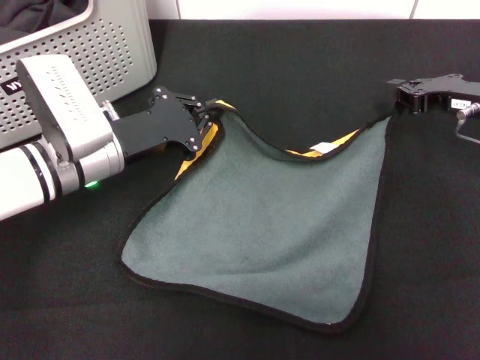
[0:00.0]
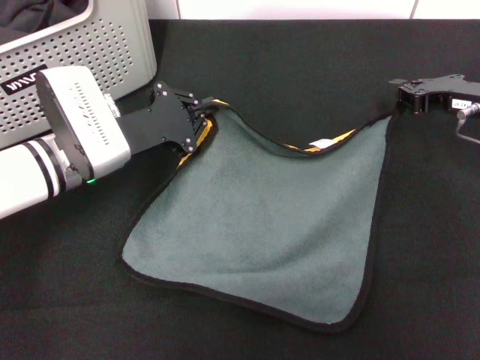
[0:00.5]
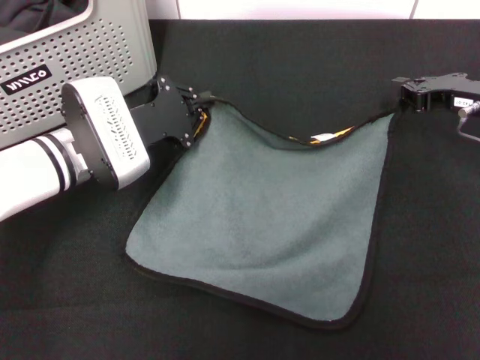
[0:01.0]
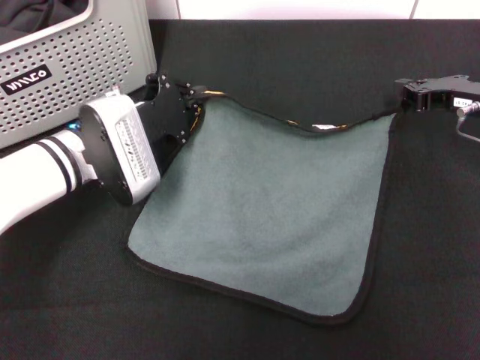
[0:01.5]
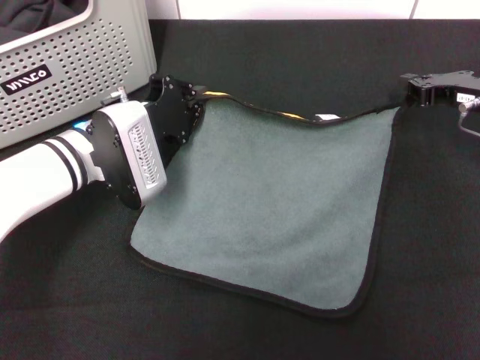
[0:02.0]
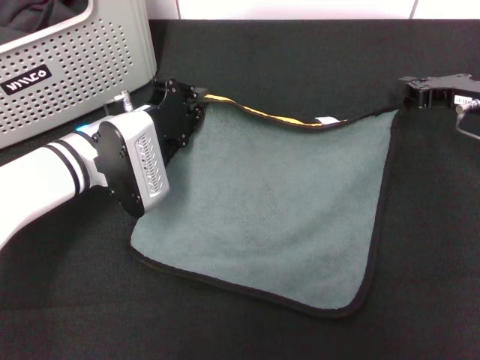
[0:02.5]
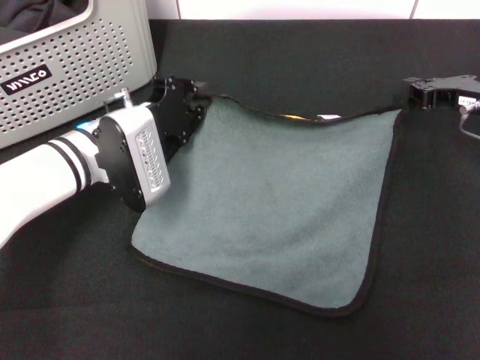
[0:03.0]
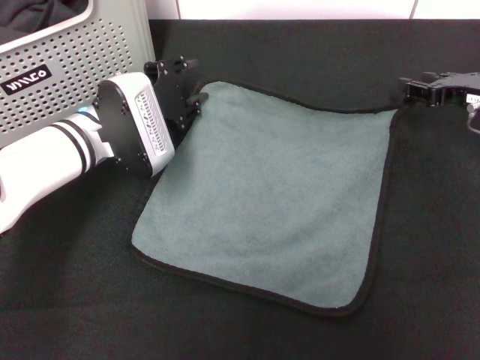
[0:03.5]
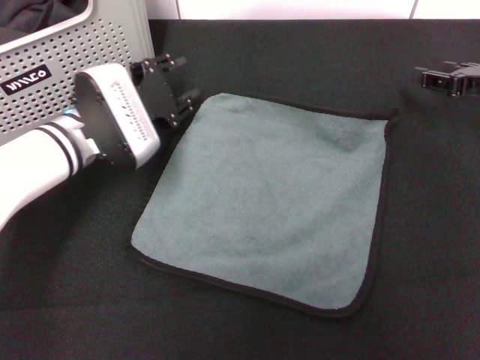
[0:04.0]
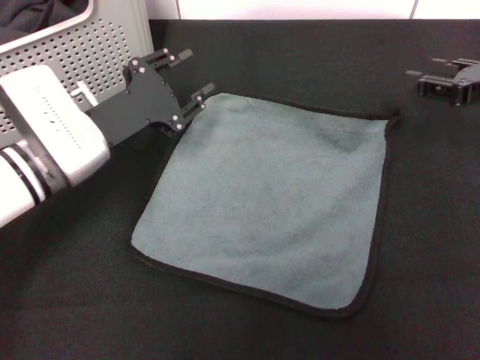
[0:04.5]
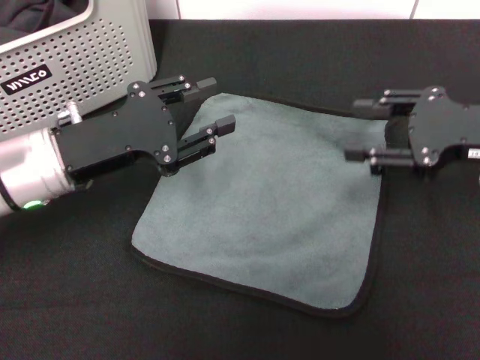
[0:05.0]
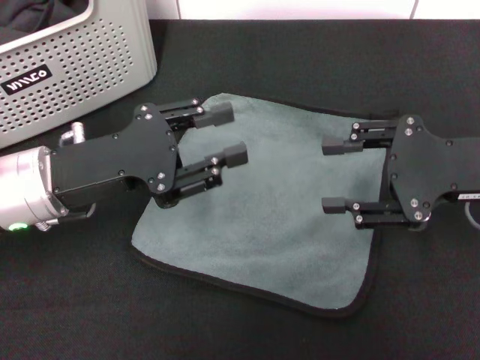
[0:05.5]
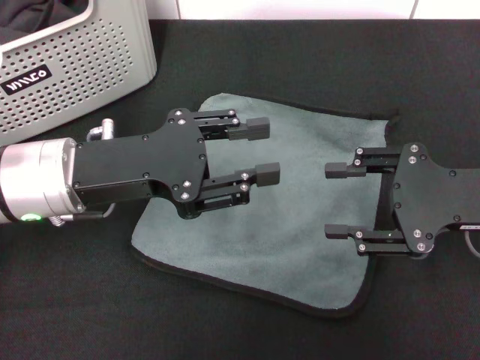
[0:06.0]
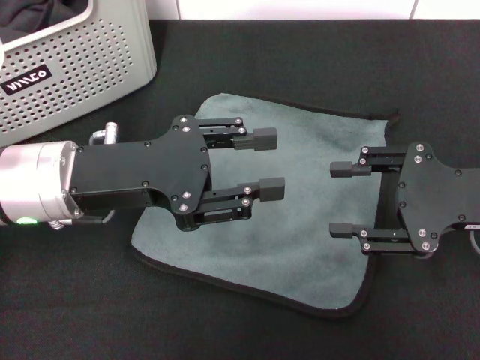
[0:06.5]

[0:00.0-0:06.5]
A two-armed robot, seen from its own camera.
Task of the whole recording: pick up the towel from the storage box and lay it flat on the black tablecloth.
Step, 0:00.0 to 0:03.5: Spread the towel flat with the right gripper.
0:02.0 to 0:04.5: The left gripper opens its fingers. The right gripper opens up.
0:04.5 to 0:06.5: The right gripper goes roughly 10 cm backward and to the left; the left gripper moves upward and backward, some 10 cm.

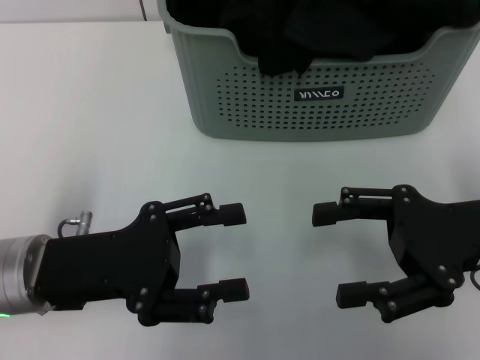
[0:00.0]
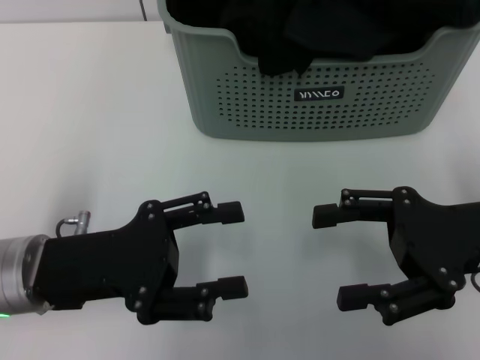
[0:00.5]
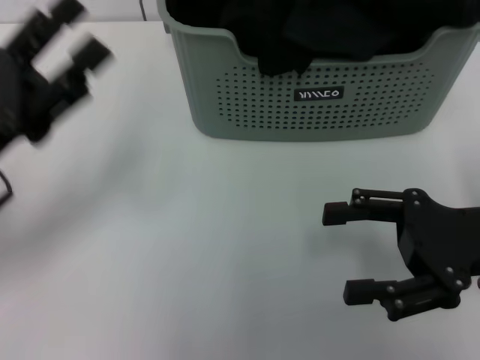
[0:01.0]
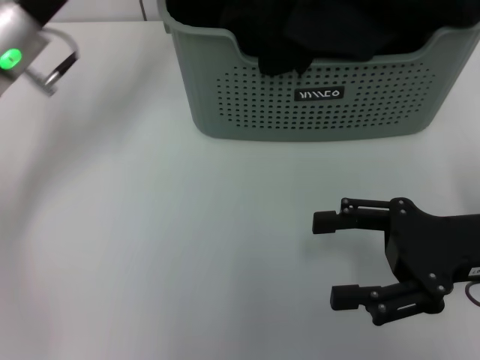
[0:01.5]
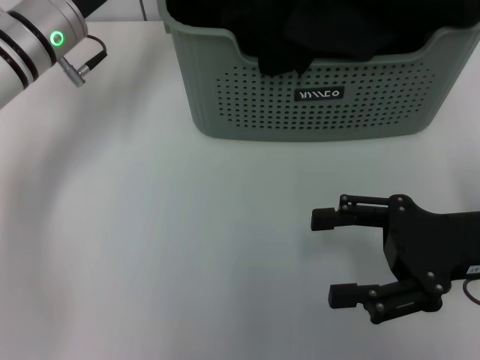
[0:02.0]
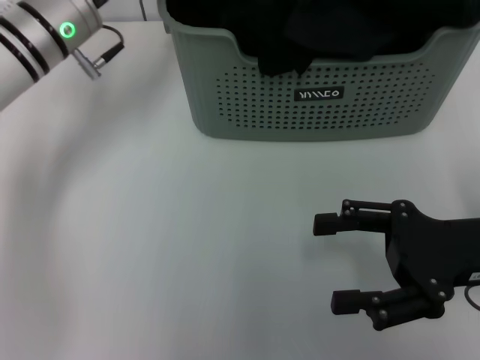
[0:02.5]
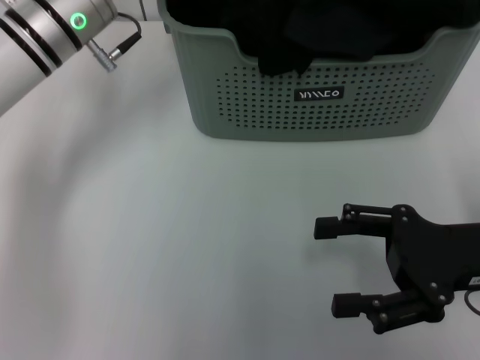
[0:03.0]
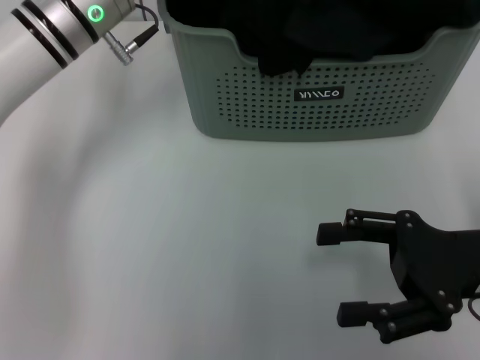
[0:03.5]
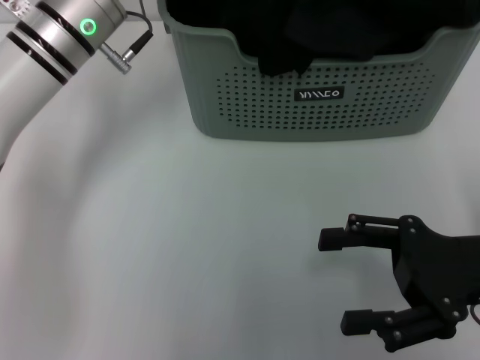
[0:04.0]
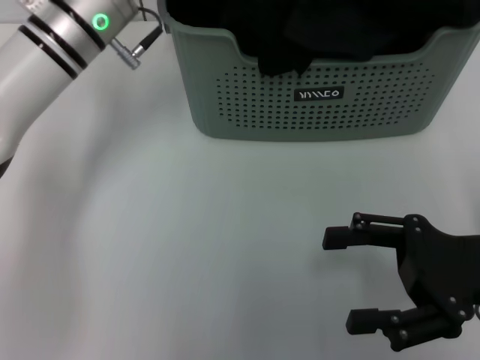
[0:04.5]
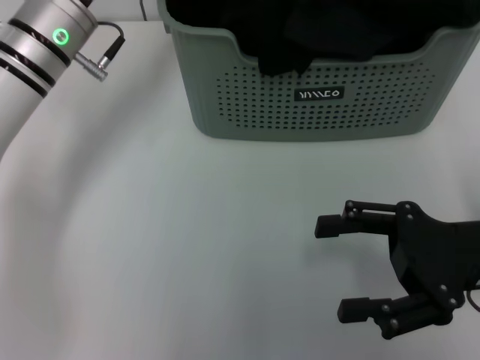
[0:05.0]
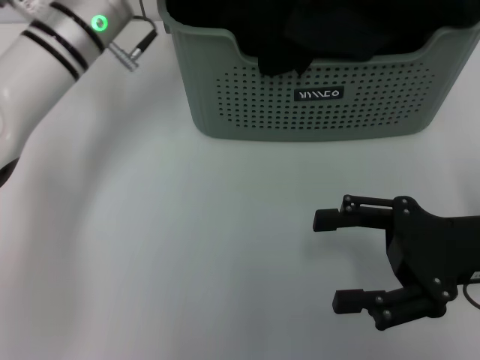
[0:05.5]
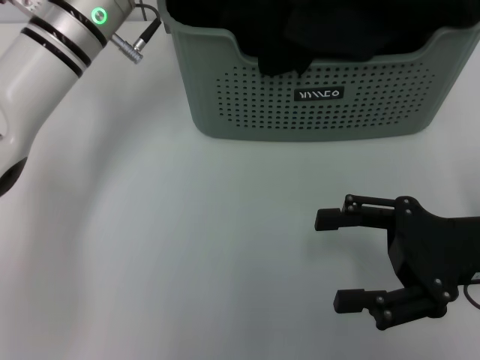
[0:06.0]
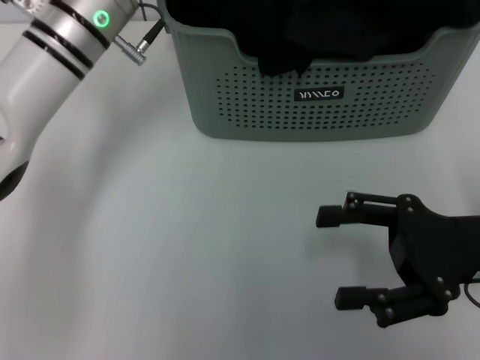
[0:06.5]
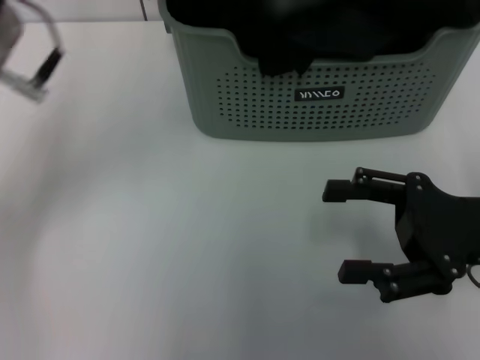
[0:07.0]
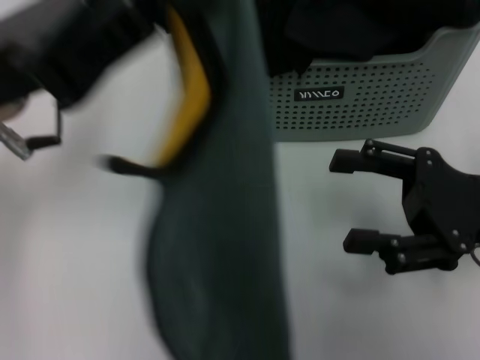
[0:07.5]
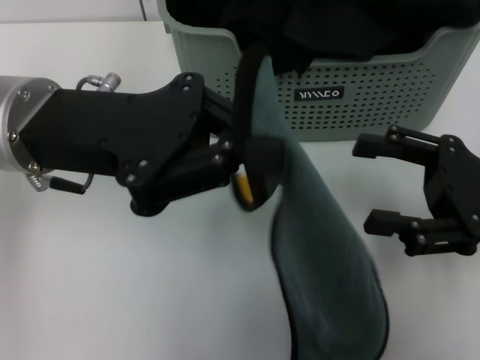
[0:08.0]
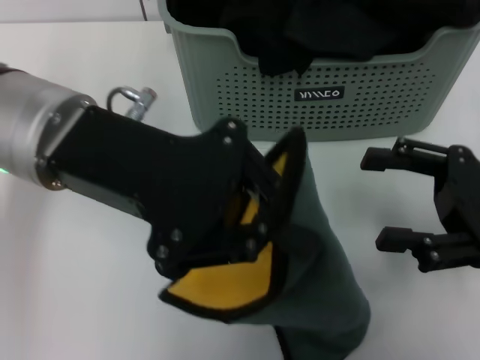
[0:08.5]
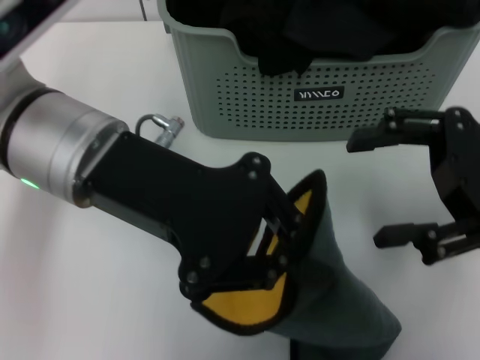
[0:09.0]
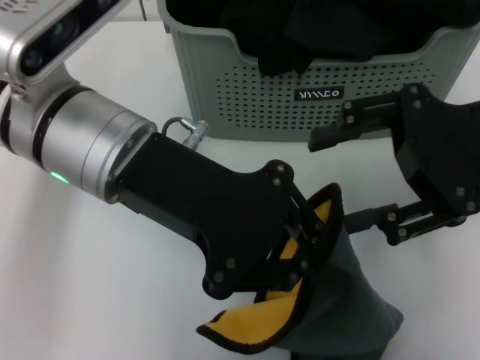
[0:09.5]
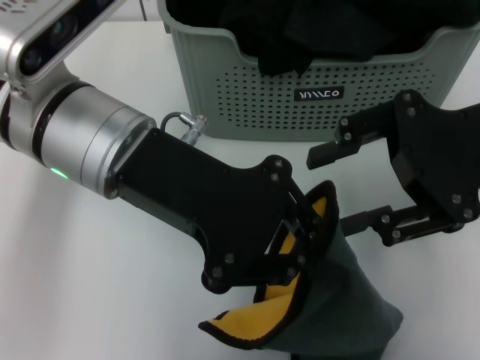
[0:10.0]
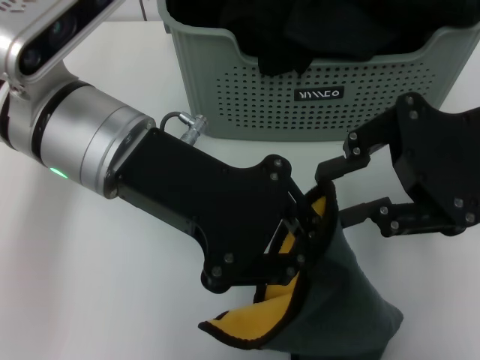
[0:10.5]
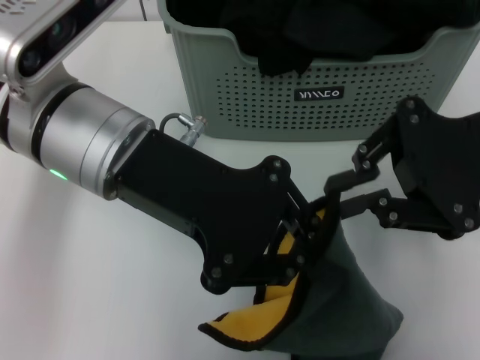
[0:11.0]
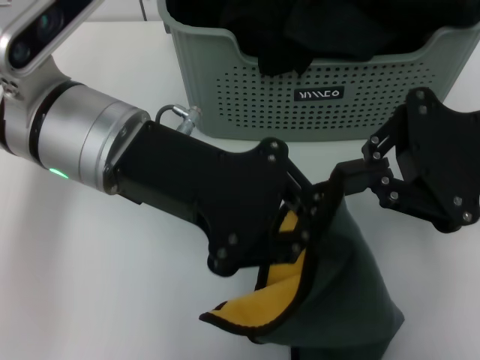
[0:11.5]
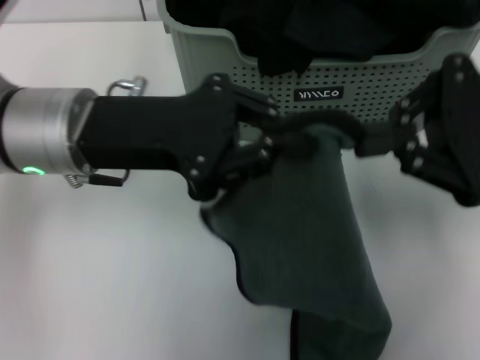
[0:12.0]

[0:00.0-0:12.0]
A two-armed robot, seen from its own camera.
Task of the whole recording: pick up the towel from the storage box and lay it flat on the table.
Step, 0:00.0 to 0:06.5: Pick up a towel with the left gripper.
Step, 0:07.0 to 0:11.0: Spread the towel flat with the left gripper.
0:00.0 to 0:02.0: The left gripper heads forward, covering approximately 20 cm.
0:02.0 to 0:04.0: The left gripper closes up.
0:04.0 to 0:06.0: The left gripper closes and opens again.
0:06.0 to 0:08.0: The left gripper heads backward, covering some 10 cm, and closes its fingers.
0:08.0 to 0:10.0: The right gripper goes approximately 10 cm upward. The left gripper shifts some 5 cm to the right.
0:10.0 to 0:12.0: The left gripper moves about 5 cm; the right gripper closes its fingers.

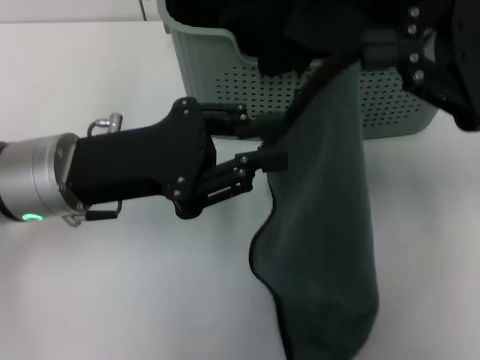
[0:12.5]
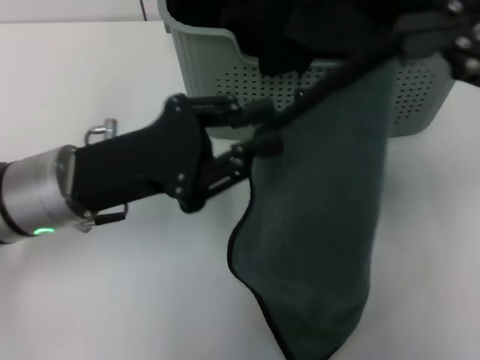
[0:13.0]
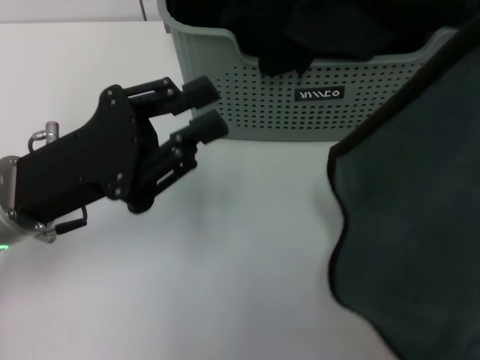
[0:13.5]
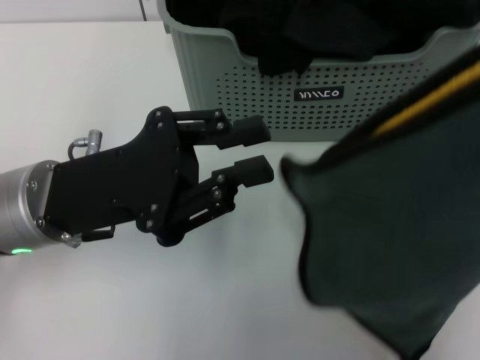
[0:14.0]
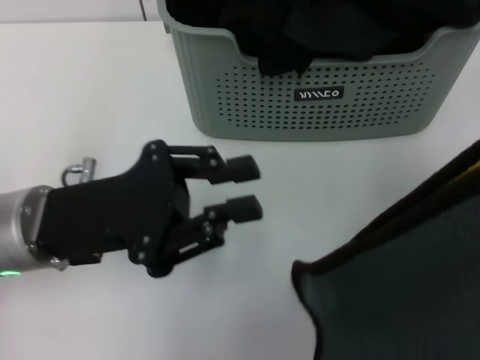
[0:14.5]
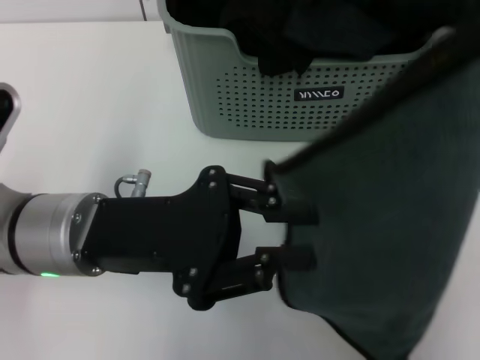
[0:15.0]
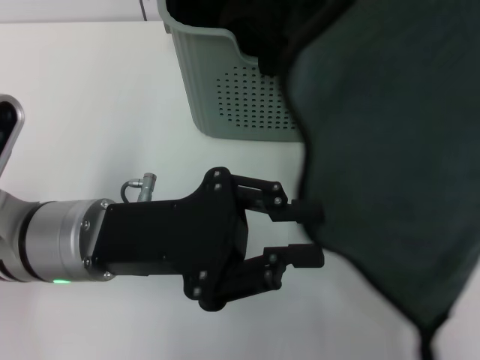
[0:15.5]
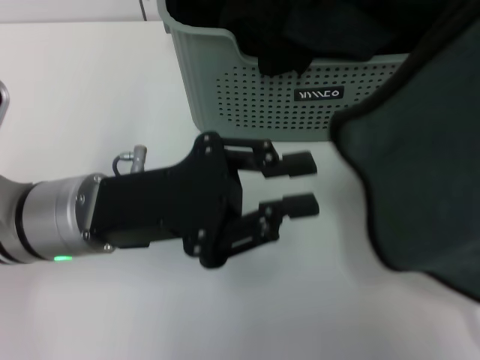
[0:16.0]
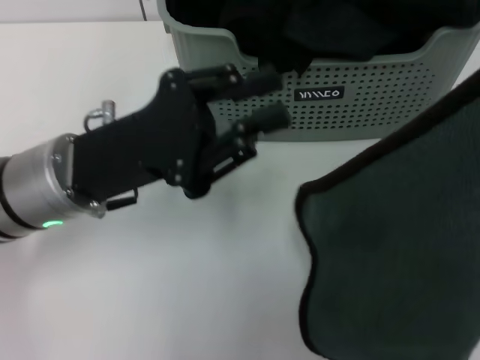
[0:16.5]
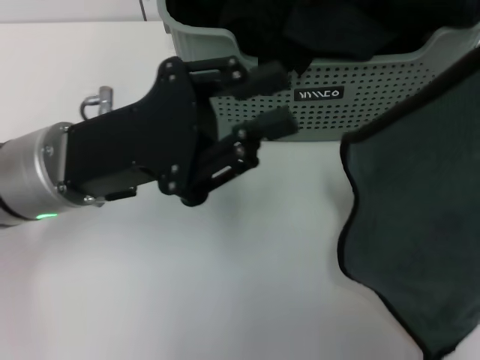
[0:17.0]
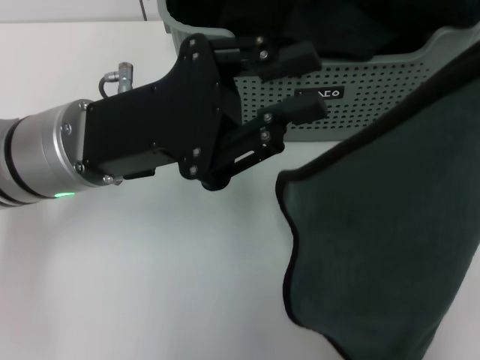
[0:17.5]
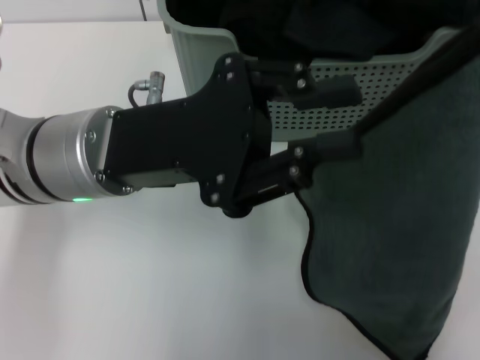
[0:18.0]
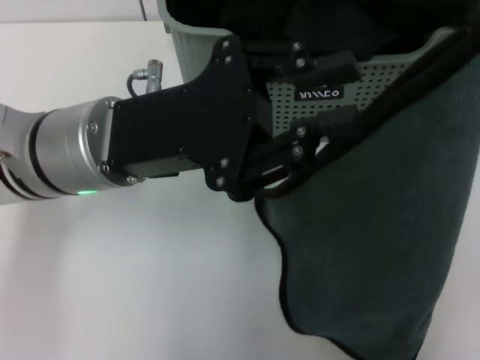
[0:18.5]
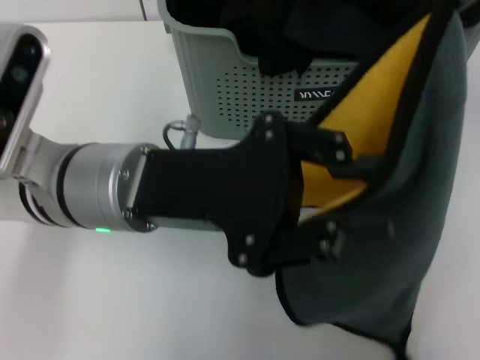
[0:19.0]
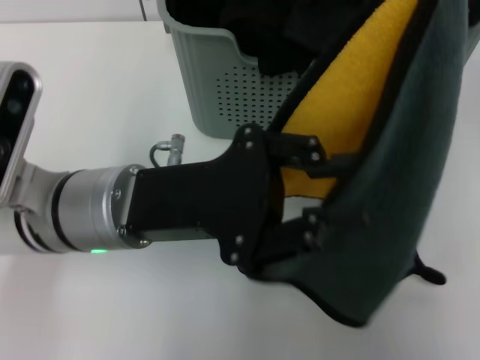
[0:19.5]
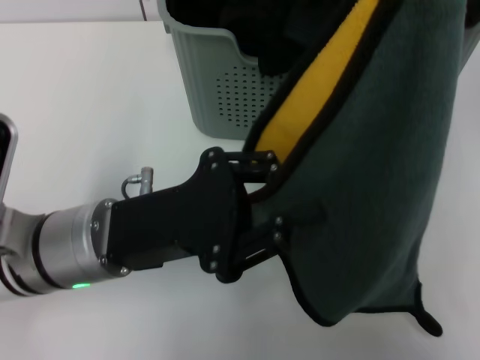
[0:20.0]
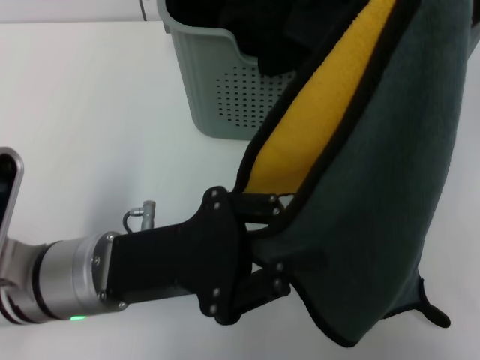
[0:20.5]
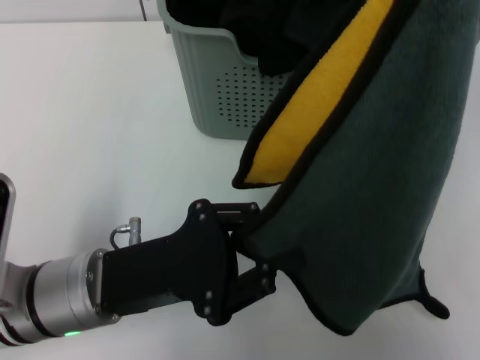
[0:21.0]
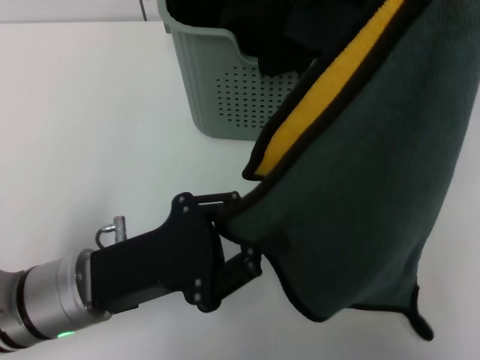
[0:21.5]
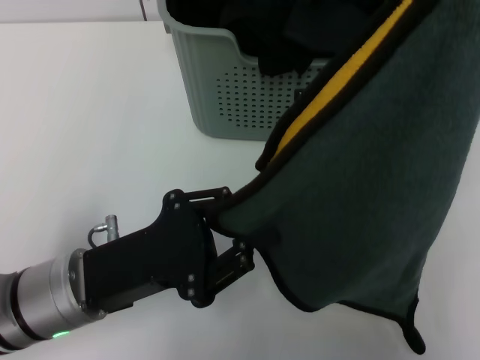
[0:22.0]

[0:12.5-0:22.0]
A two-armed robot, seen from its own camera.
Task of the whole recording: pick up the towel from the storage box and lay it flat on the table.
0:12.5 to 0:14.5: The right gripper heads upward, covering some 15 cm.
0:18.0 to 0:20.0: The left gripper travels downward by approximately 5 cm.
0:20.0 to 0:22.0: The left gripper ends up roughly 5 cm from where it was.
